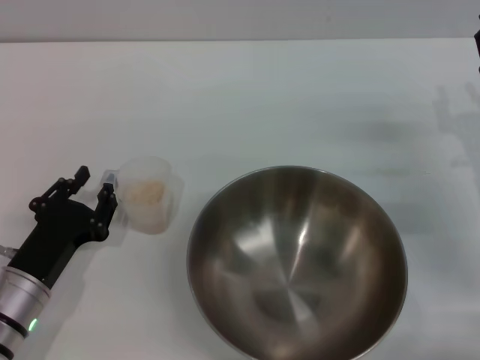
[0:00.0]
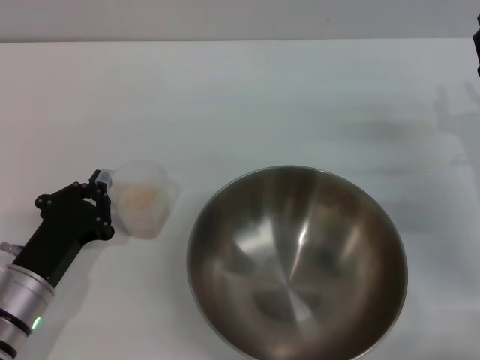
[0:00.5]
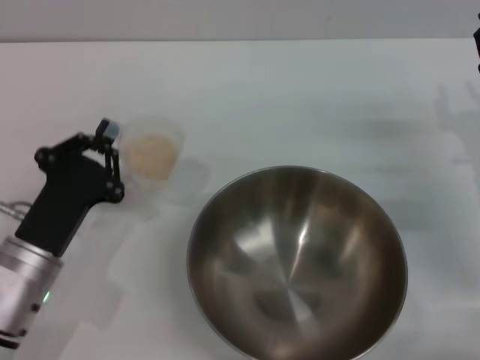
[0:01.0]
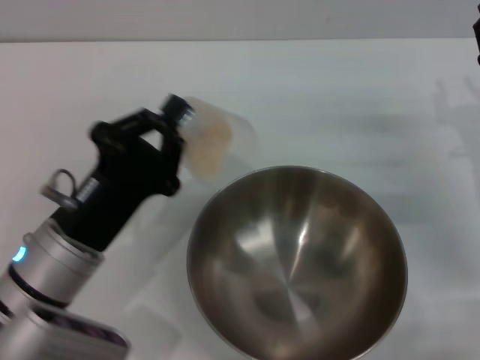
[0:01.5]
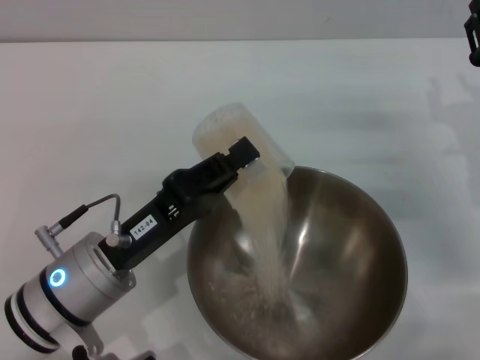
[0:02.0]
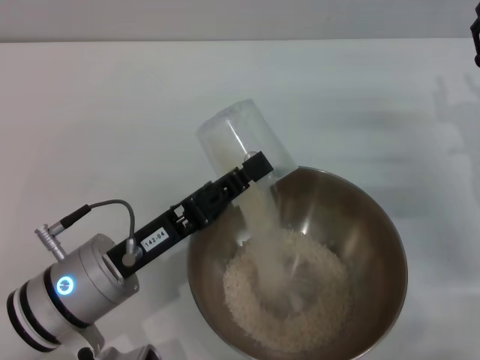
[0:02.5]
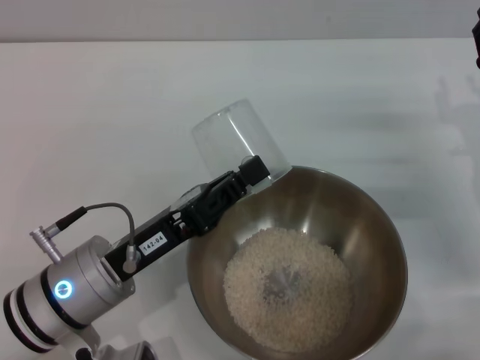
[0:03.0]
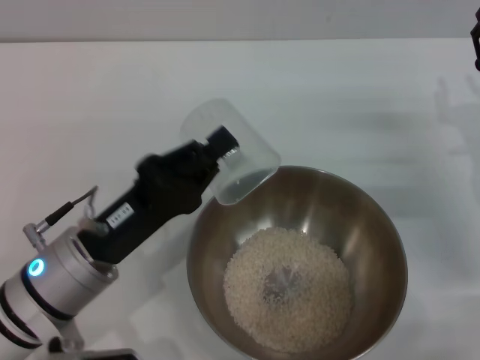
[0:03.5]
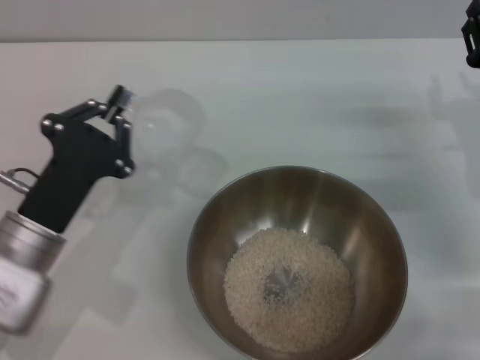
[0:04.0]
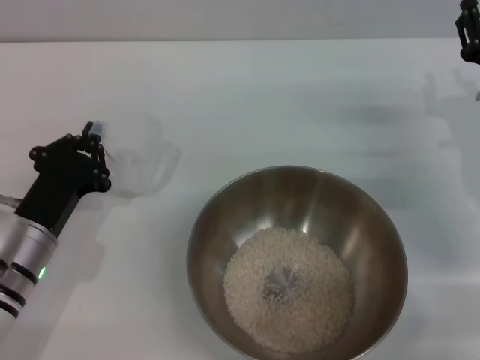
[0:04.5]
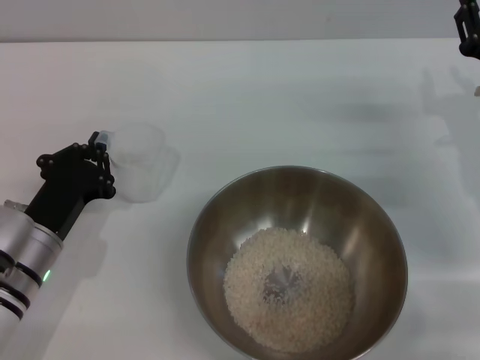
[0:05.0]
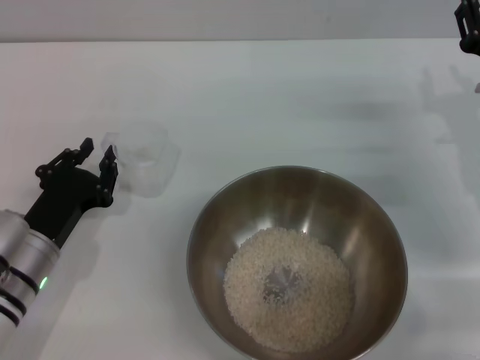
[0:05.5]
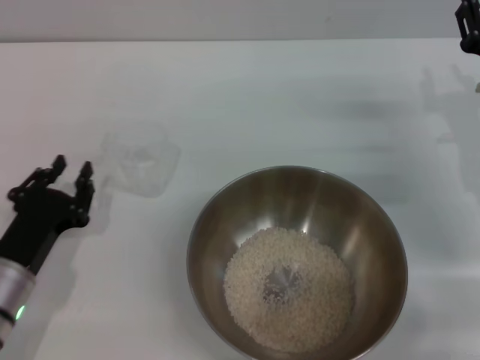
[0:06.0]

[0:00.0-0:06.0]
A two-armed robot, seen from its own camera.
Task of the whole recording: Place the bowl in the middle of the table with one hand and pour the rice from the grain cup into it with the other hand.
Step, 0:01.5 to 0:03.5: Pour the rice from the cup into the bowl with the left gripper.
Step, 0:04.0 to 0:05.5: Place the cup on the table with the left gripper.
0:00.0 to 0:02.0: The left gripper moves to the right and upward, some 10 cm, and closes.
0:02.0 to 0:04.0: The left gripper moves approximately 5 cm.
0:04.0 to 0:06.0: The left gripper shifts some 5 cm downward.
